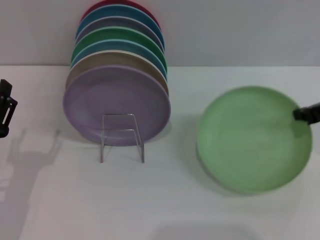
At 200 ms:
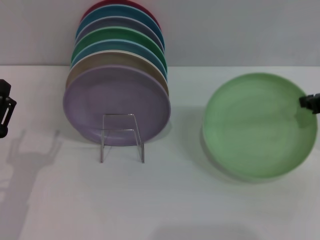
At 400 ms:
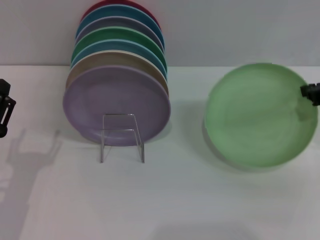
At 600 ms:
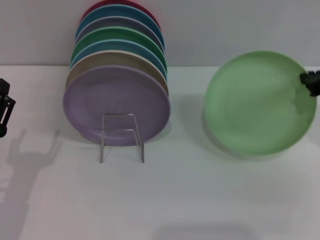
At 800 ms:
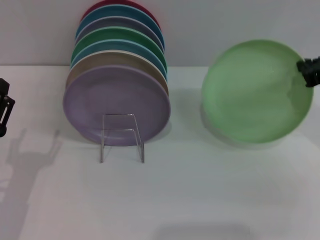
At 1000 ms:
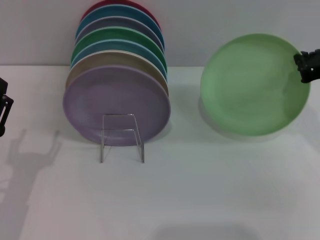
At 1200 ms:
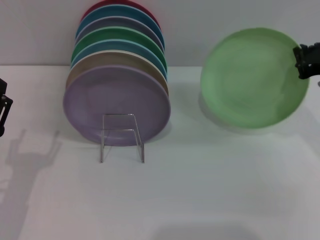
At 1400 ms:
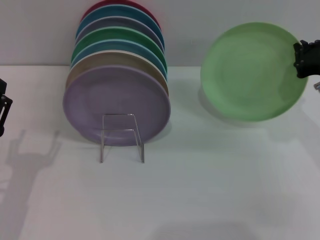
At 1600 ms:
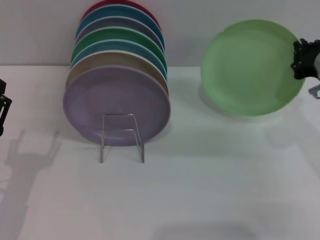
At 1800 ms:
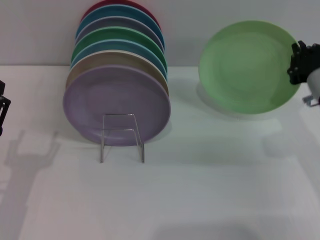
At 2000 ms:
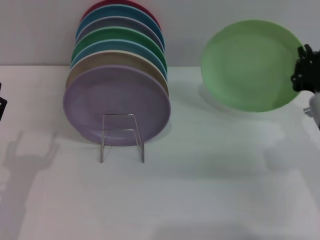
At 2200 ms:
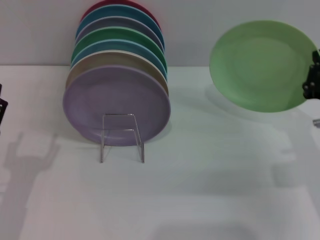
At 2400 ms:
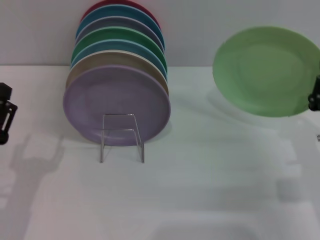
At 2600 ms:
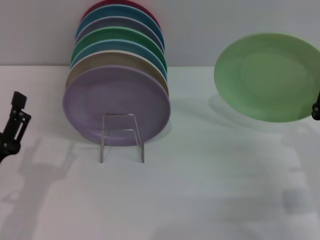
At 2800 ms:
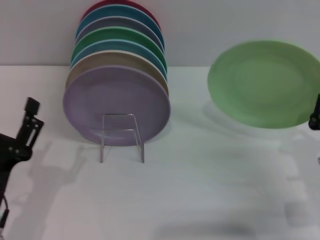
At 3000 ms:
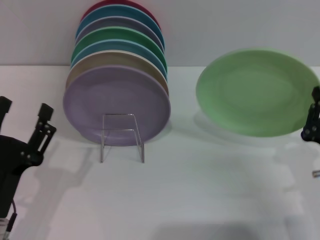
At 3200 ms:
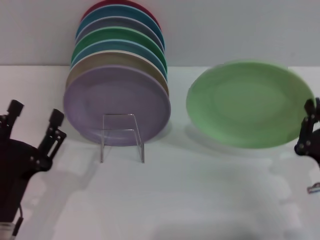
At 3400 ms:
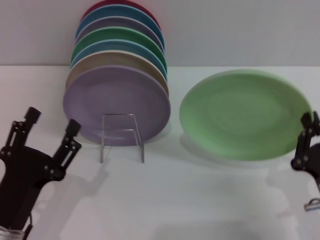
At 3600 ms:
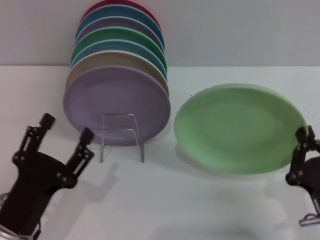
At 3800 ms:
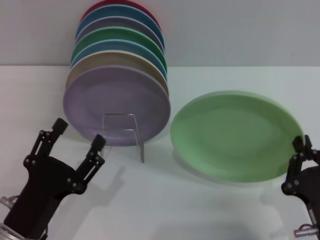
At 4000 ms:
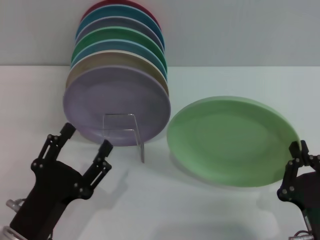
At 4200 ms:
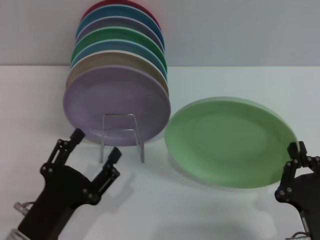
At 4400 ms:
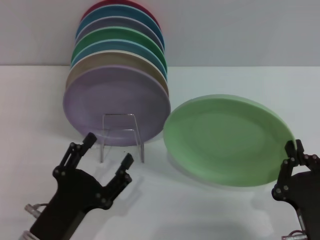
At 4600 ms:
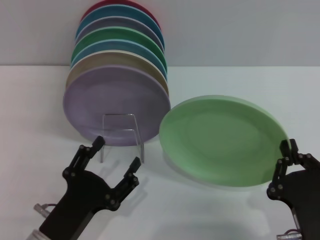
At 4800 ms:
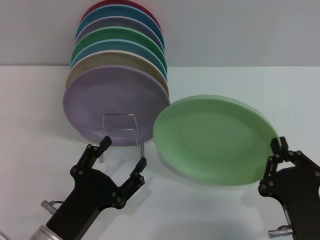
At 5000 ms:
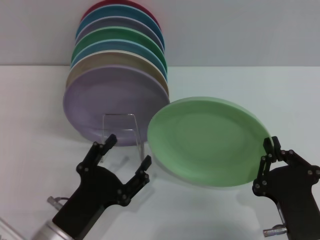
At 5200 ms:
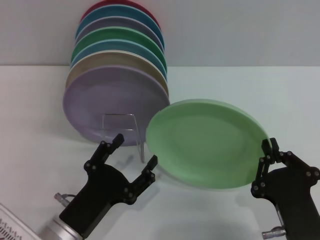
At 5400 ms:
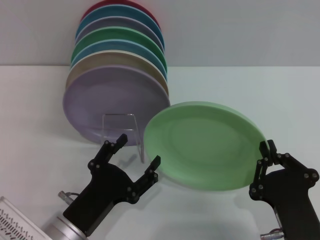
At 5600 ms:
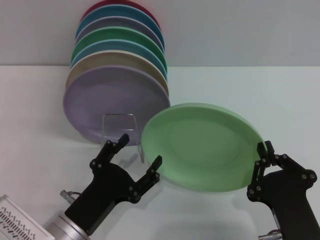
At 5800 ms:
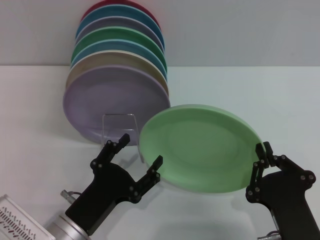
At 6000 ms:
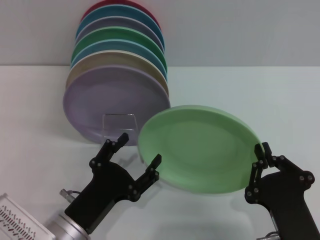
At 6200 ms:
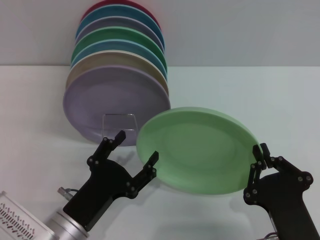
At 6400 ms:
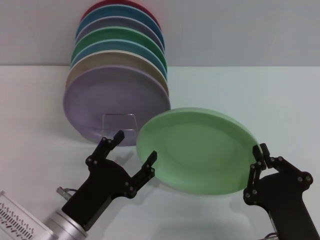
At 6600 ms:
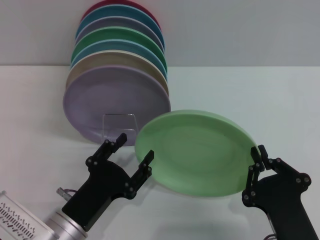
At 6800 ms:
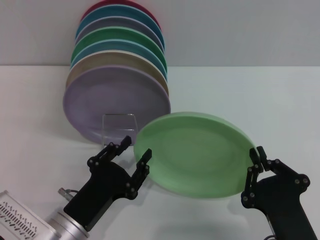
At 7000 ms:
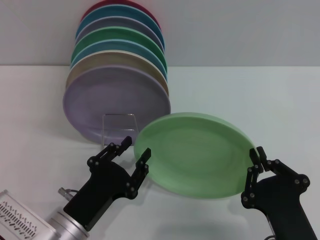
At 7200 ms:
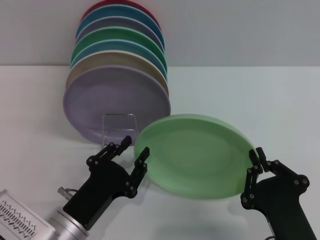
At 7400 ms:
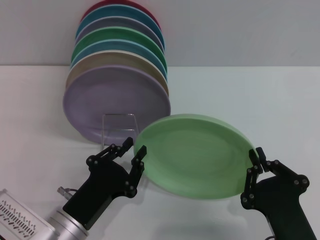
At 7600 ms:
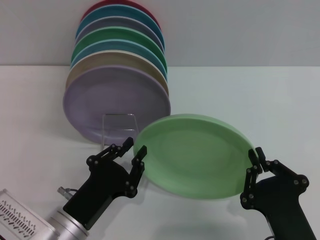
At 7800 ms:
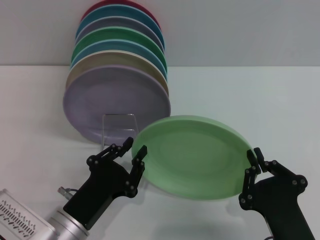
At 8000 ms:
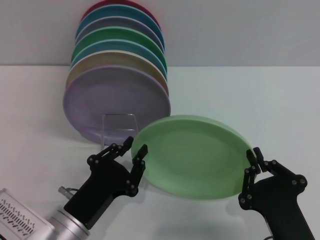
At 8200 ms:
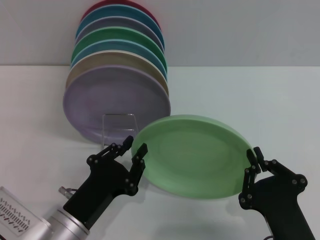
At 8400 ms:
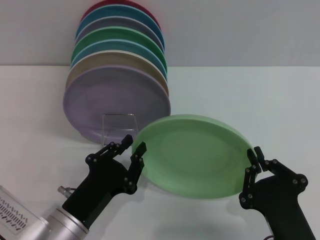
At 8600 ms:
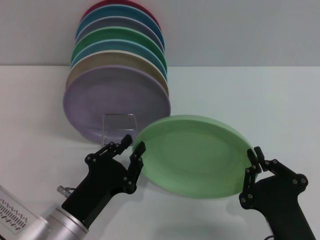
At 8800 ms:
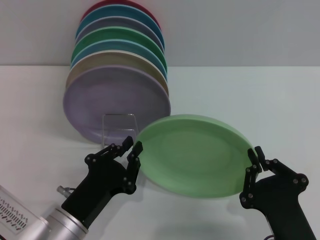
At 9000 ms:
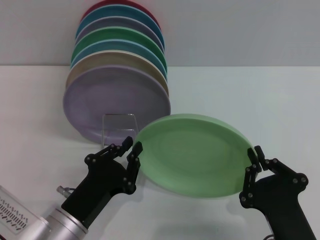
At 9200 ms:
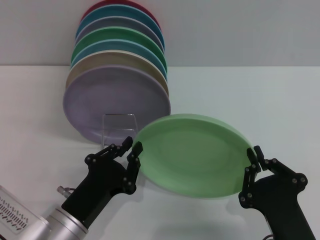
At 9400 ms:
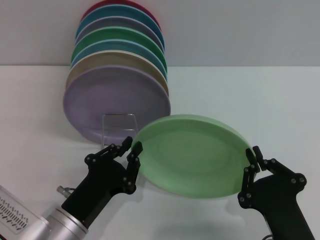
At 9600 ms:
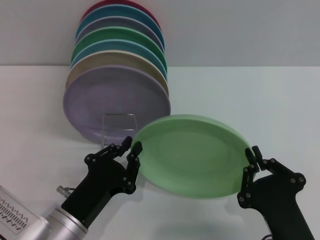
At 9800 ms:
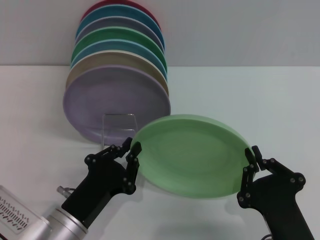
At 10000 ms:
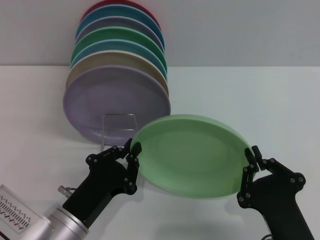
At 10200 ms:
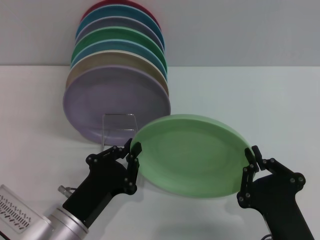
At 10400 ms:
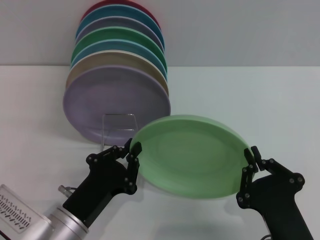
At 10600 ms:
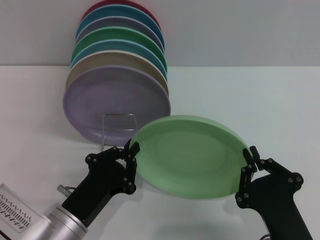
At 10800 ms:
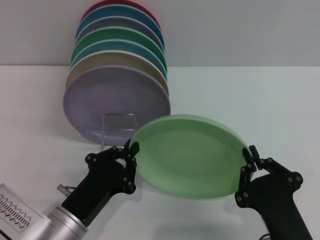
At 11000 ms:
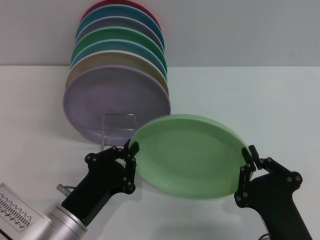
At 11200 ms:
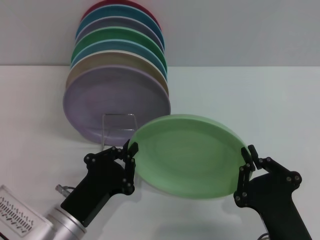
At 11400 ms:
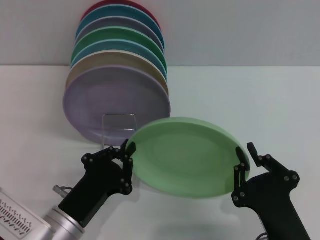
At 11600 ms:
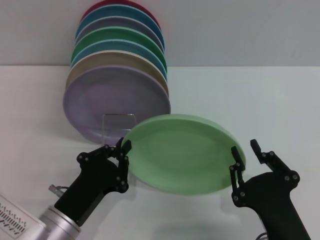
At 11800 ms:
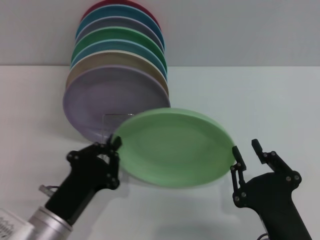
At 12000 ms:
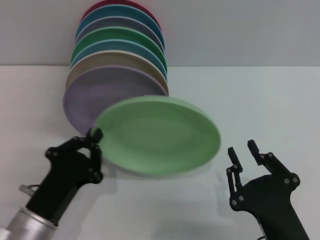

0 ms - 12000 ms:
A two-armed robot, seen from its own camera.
Task of the whole recording: Grip the plate with one hand, pass it to the other, then set it on the shelf.
0 ms - 1600 ms: The right gripper changes place by roughly 5 cm.
1600 ms - 3000 ms: The right gripper travels backward and downward by approximately 15 cm.
3000 ms - 4400 ms: The right gripper is displaced backward and to the left by some 10 cm, while the left gripper ends up approximately 5 cm from where it was.
6000 ms - 7600 ms: The left gripper closes.
7600 ms - 9000 ms: The grippers make only small movements.
9000 ms - 10400 ms: Neither gripper changes place.
10400 ms - 12000 ms: The right gripper opens its fingers.

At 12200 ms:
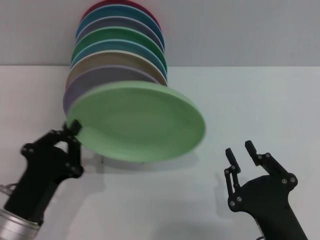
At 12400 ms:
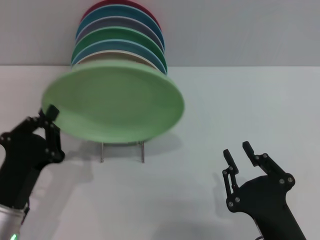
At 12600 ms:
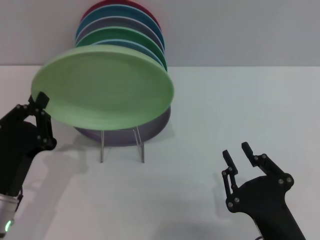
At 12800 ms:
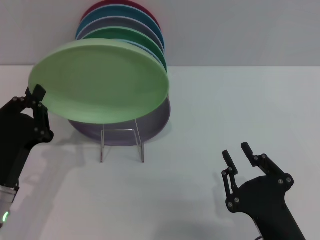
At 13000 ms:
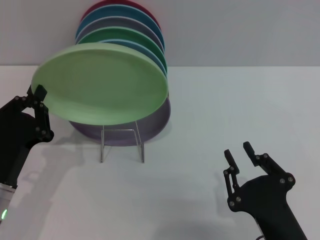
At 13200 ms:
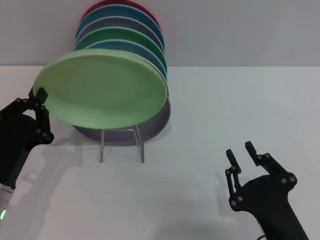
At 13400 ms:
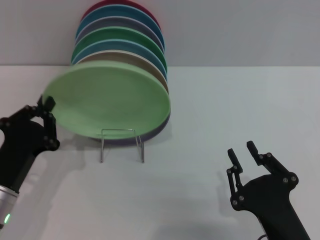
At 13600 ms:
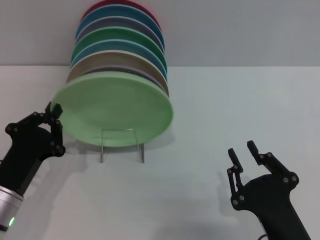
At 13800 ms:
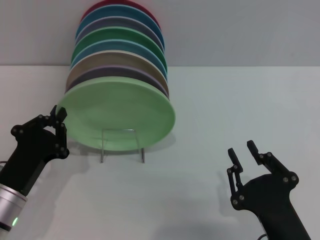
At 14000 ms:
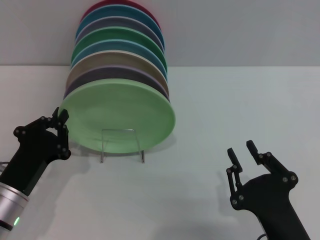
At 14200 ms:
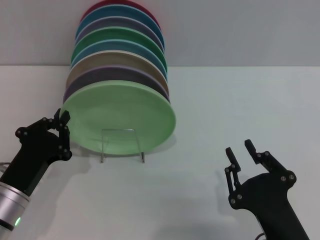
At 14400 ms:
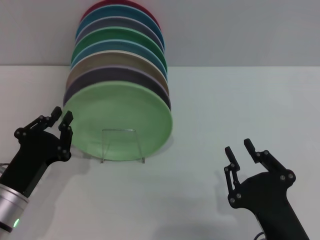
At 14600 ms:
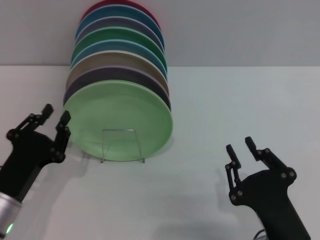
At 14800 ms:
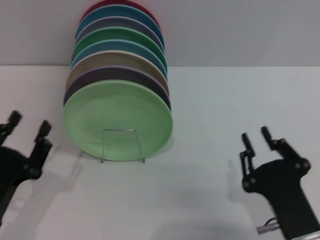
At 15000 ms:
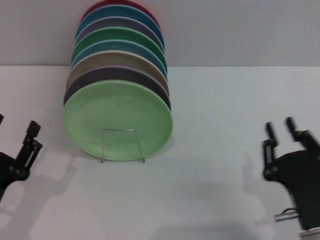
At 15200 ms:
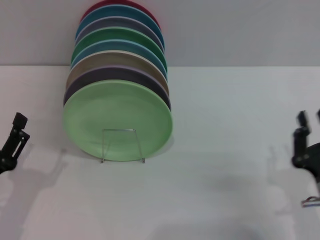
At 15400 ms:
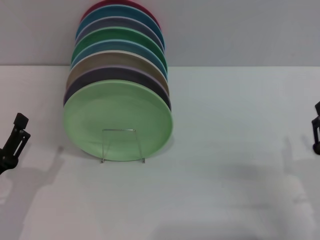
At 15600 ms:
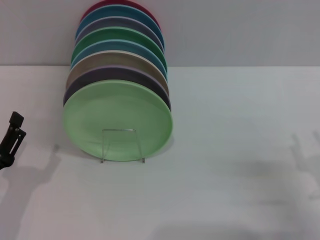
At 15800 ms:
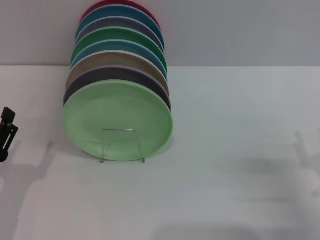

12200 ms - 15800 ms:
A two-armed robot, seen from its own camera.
Task of the whole recording: Grip the plate with one hand, pass it to the other, then set it on the shelf.
Step, 12400 ms - 14600 ms: Place the plate on the shelf with the left gripper.
12200 ms - 14000 ms: The left gripper ends up approximately 5 cm from where it was.
14000 ms - 15800 ms: The right gripper goes about 15 cm to the right and forward, and opens. The left gripper ends up roughly 5 cm from where it was, and opens.
